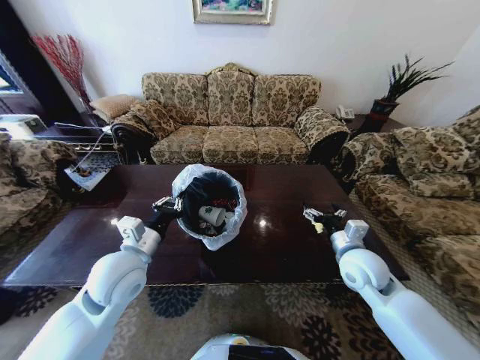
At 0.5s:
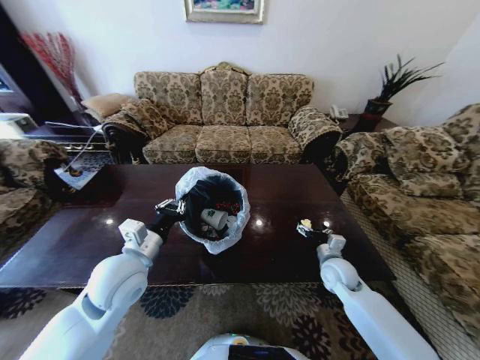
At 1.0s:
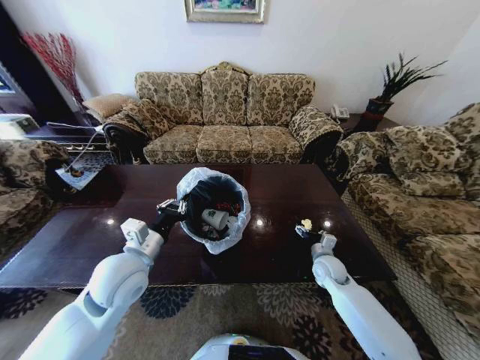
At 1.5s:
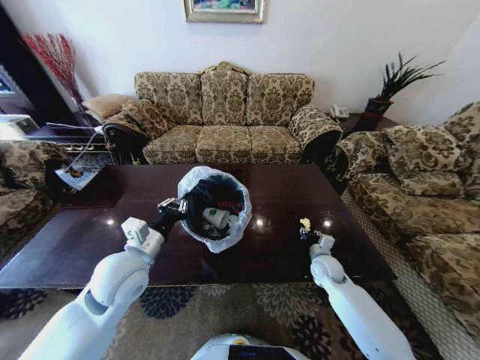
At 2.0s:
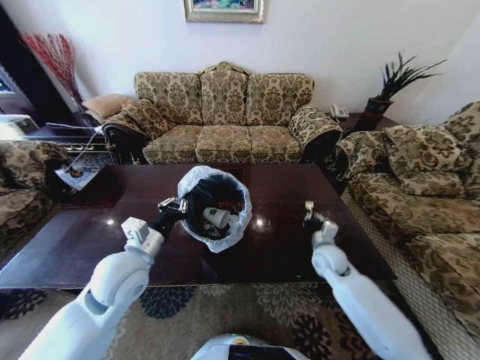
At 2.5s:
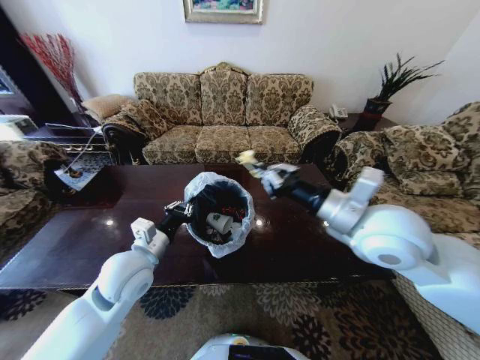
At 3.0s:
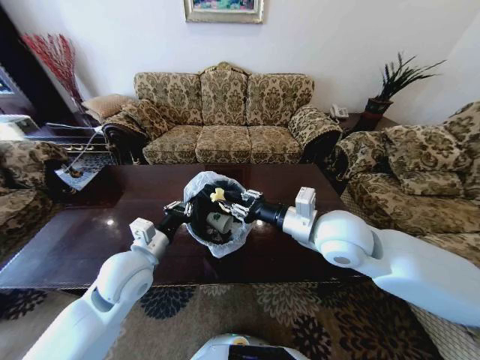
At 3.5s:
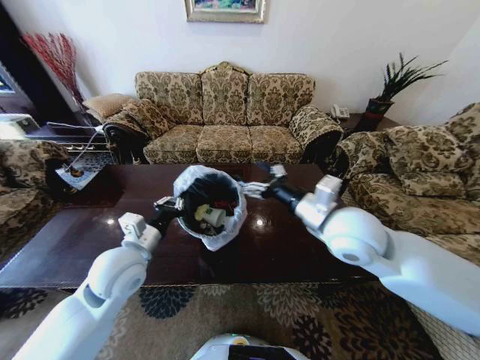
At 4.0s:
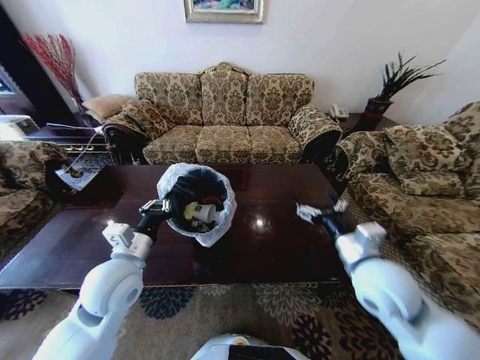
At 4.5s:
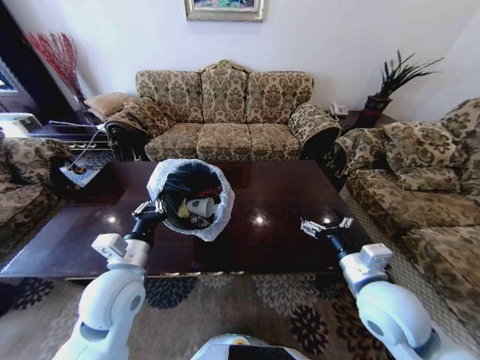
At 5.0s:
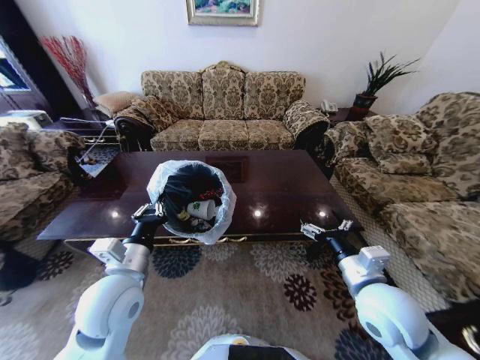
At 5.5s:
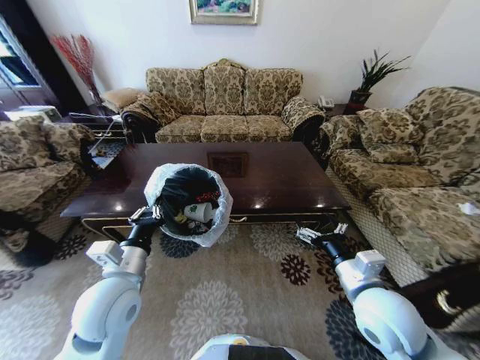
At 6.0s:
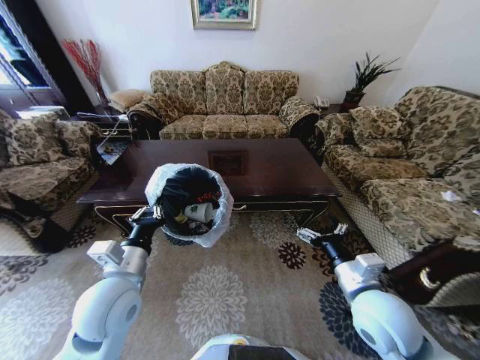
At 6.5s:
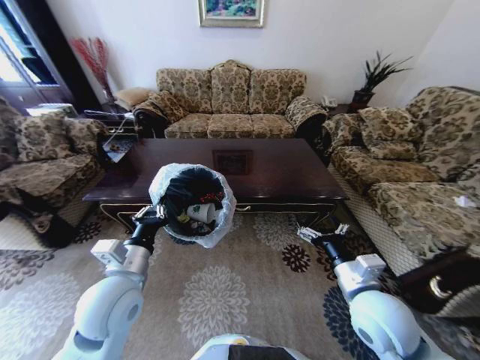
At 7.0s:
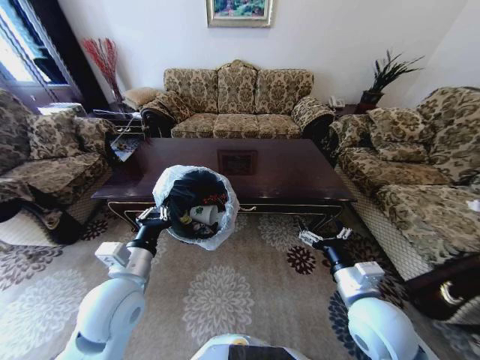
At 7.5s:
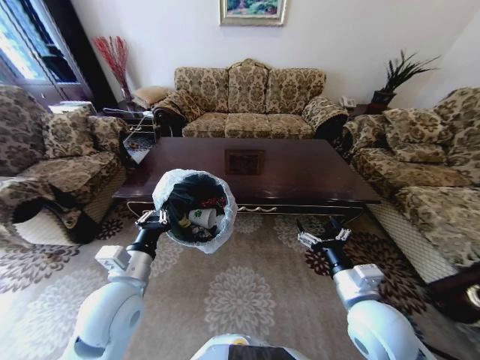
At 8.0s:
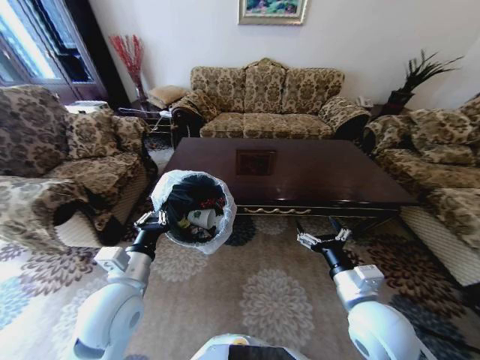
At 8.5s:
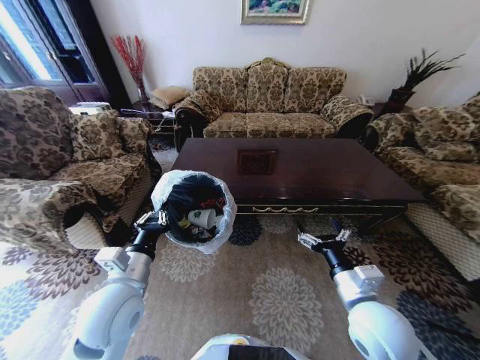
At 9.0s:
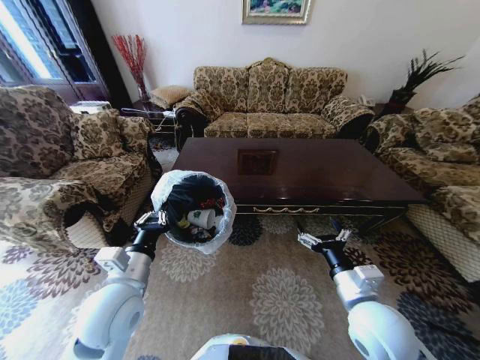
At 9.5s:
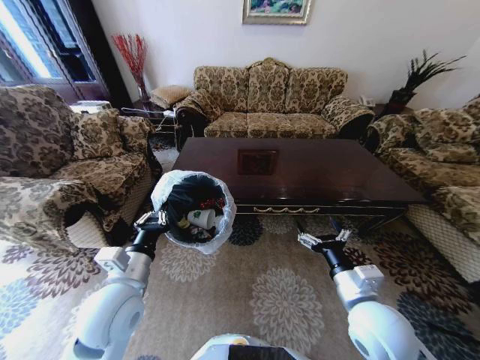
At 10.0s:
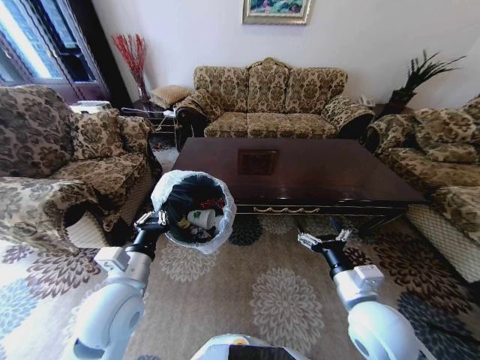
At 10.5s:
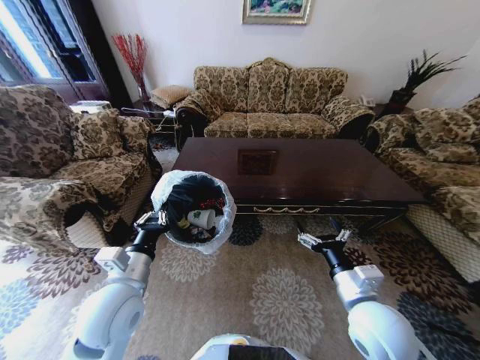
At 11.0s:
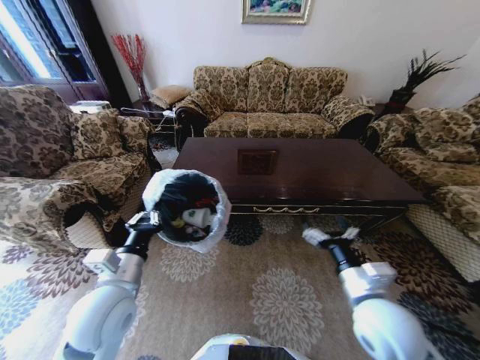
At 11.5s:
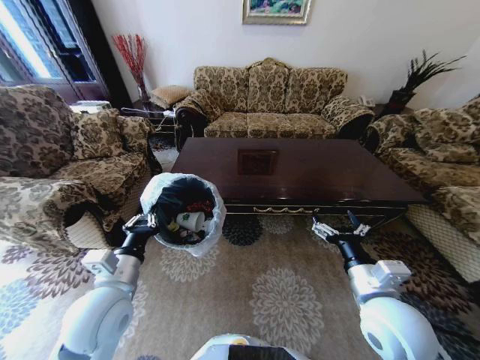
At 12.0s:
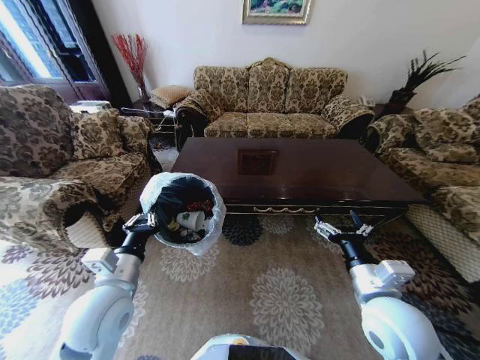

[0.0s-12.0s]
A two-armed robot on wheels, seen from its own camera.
Task of the whole recording: Move to the front of the table and place the trash on the table into the trash bin.
0.0s to 2.0s: The right gripper is displaced downward and forward by about 10 cm, and closes up.
2.0s to 4.0s: The right gripper travels upward and backward by about 20 cm, and opens.
4.0s to 6.0s: The right gripper moves about 5 cm.
8.0s to 10.0s: Both grippers stay put.
10.0s to 12.0s: The grippers make only small movements.

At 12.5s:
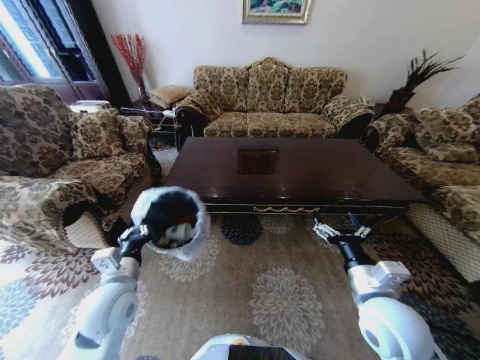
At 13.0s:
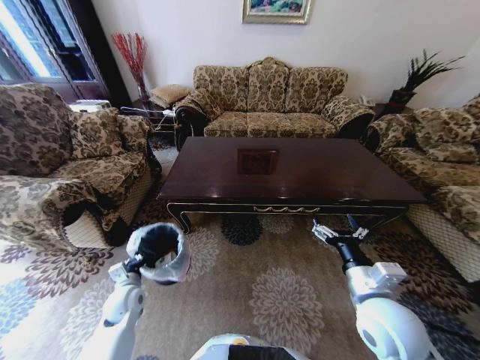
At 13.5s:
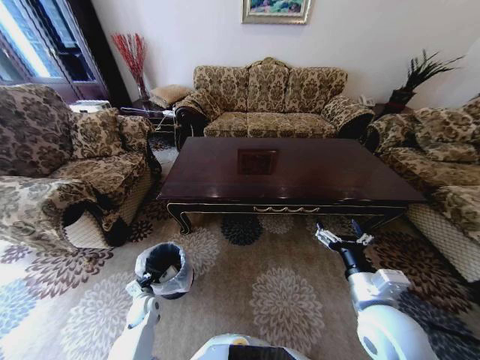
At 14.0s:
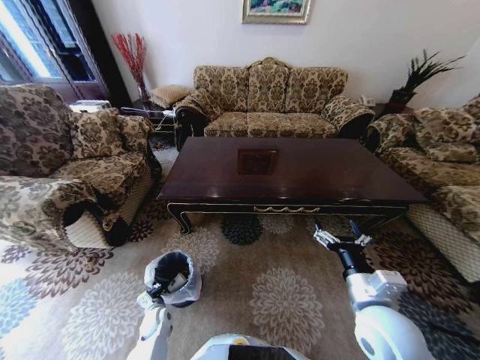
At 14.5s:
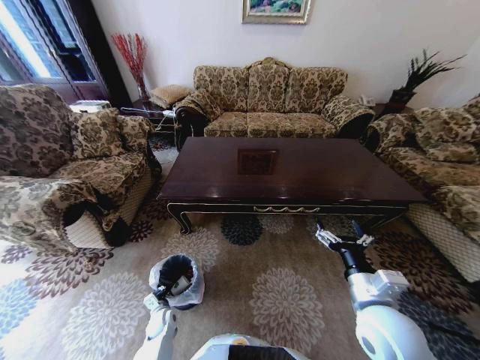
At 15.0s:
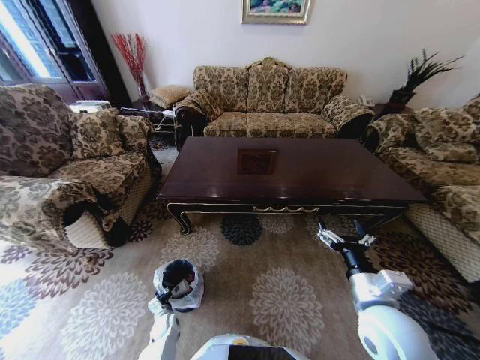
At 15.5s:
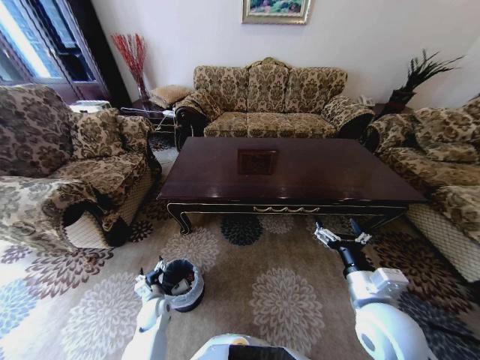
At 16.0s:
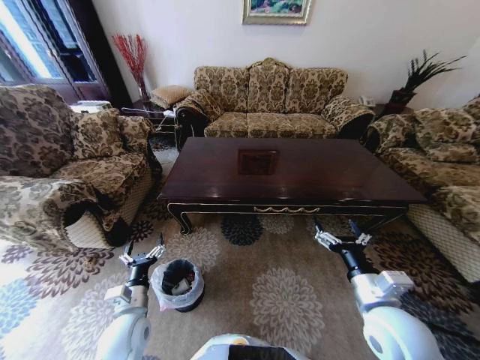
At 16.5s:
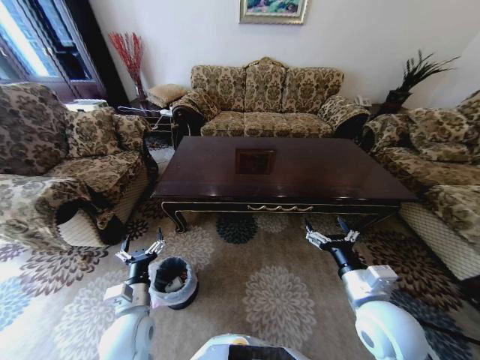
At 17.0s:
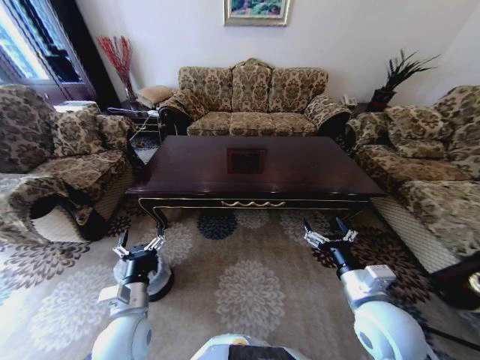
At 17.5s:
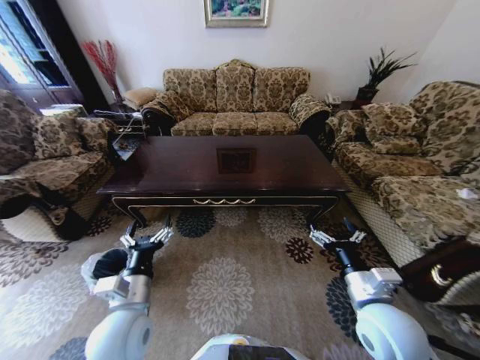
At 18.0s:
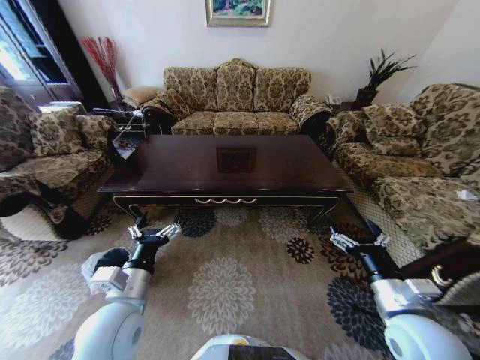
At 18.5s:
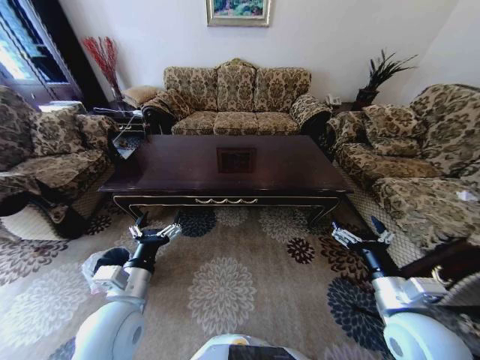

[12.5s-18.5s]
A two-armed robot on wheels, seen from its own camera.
Task of the whole recording: Move to the front of the table and place the trash on the table into the trash bin.
12.5s to 14.5s: The left gripper goes approximately 35 cm downward.
14.5s to 16.5s: The left gripper moves upward, roughly 25 cm, and opens up.
16.5s to 18.5s: The left gripper is displaced upward by approximately 10 cm.

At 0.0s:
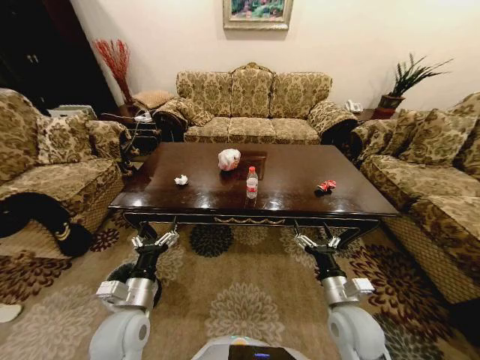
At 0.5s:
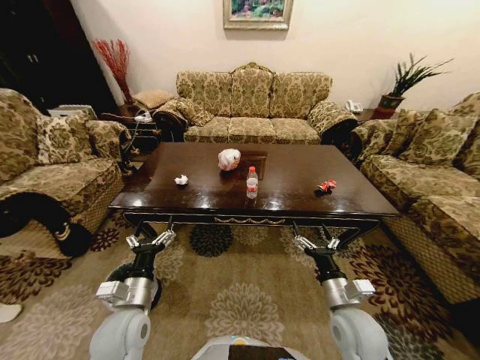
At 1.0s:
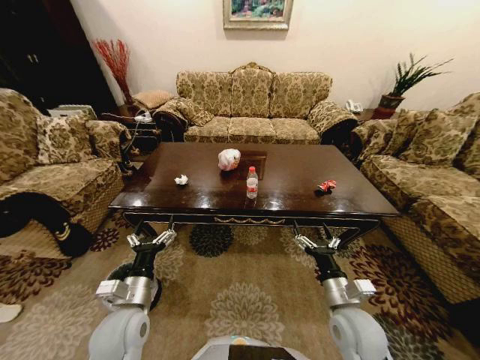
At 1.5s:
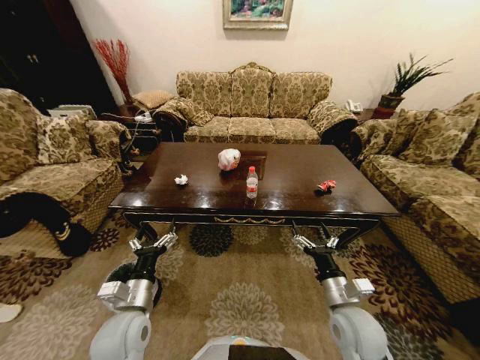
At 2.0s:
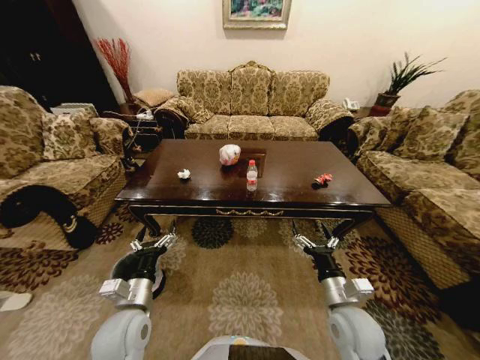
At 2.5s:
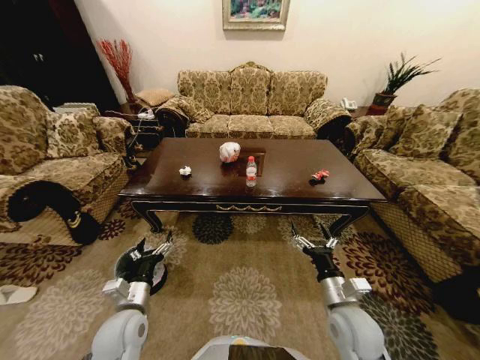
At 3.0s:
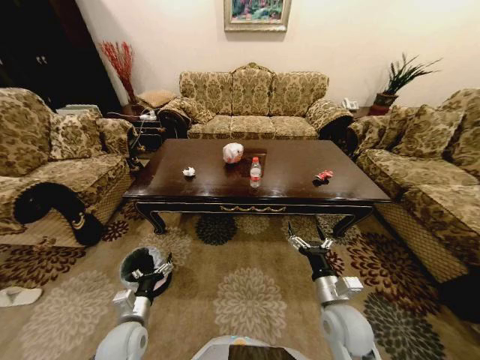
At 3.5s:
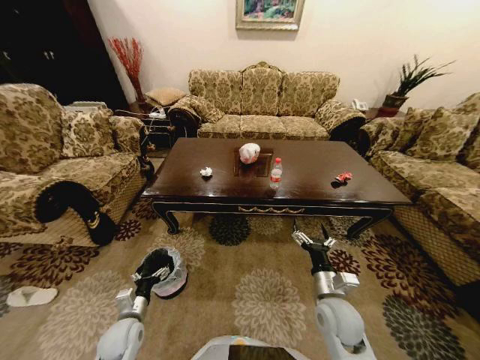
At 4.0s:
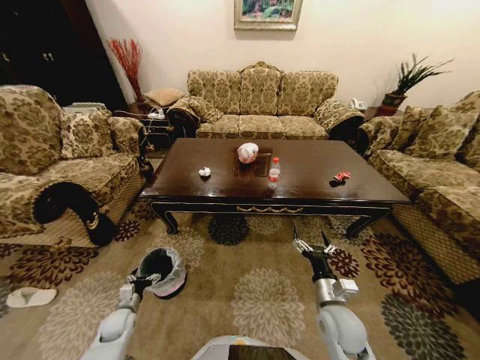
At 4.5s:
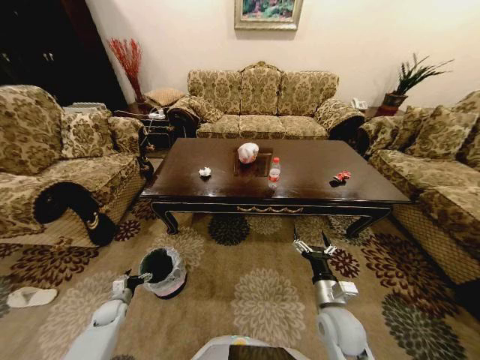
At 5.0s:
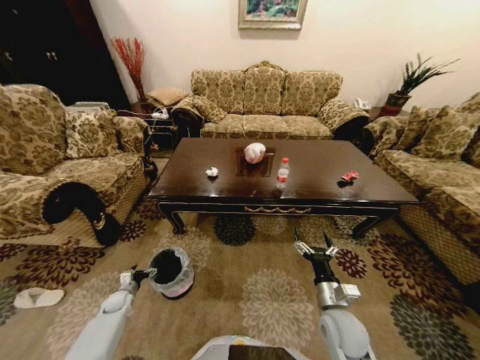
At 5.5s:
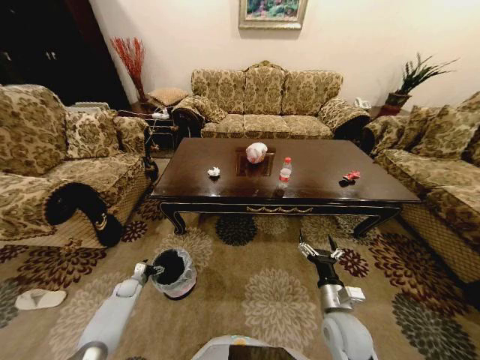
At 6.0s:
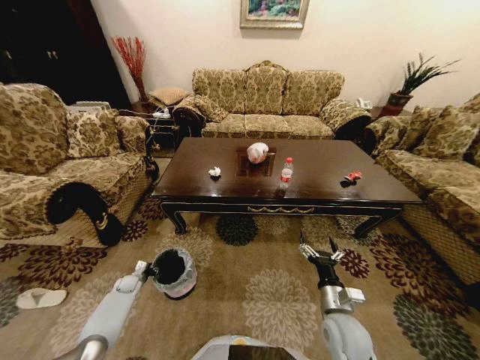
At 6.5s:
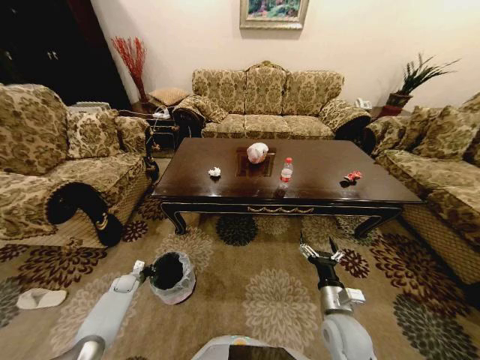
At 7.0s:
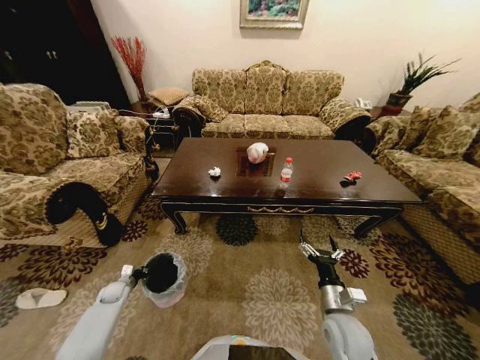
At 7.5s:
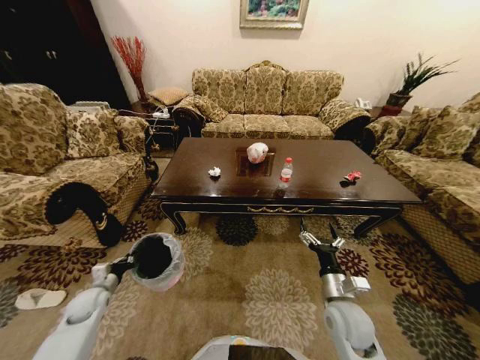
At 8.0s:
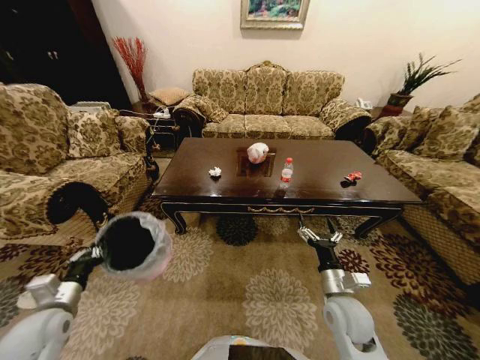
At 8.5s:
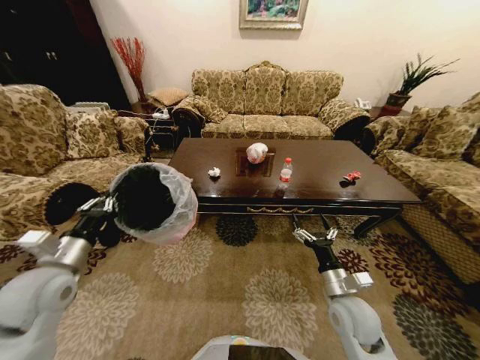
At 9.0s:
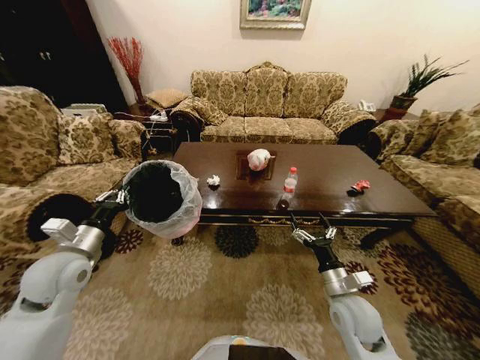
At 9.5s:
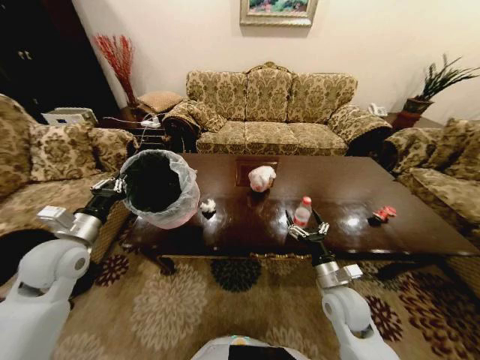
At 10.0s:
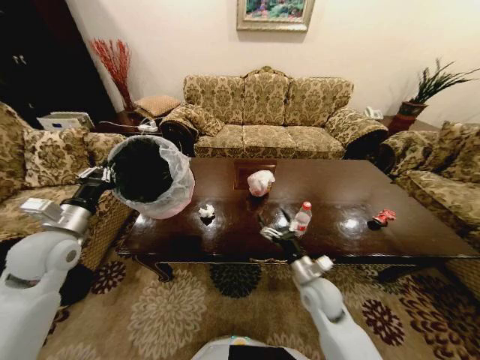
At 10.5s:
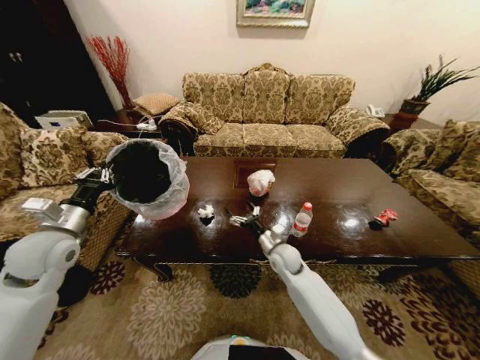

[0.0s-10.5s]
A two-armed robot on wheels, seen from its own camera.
Task of the whole recording: Move to the front of the table and place the trash on the table into the trash bin.
2.0s to 4.0s: The left gripper heads downward and to the left, covering about 30 cm.
4.0s to 6.5s: The left gripper heads forward and to the left, covering some 15 cm, and closes.
6.5s to 8.5s: The left gripper travels upward by approximately 40 cm. Meanwhile the right gripper shifts by some 5 cm.
8.5s to 10.5s: The left gripper moves forward, approximately 5 cm. Meanwhile the right gripper heads forward and to the left, covering some 20 cm.
